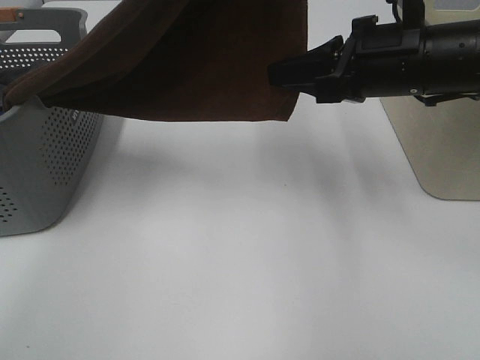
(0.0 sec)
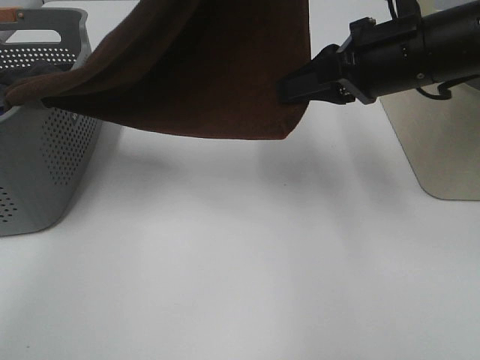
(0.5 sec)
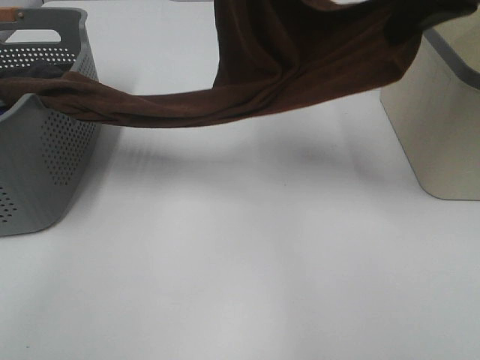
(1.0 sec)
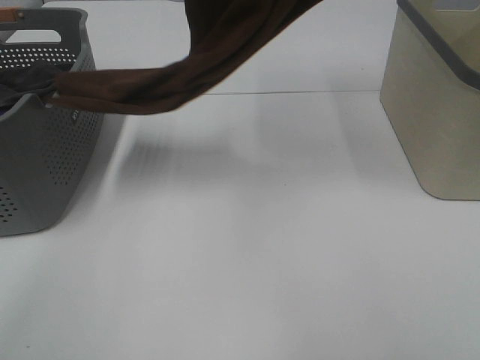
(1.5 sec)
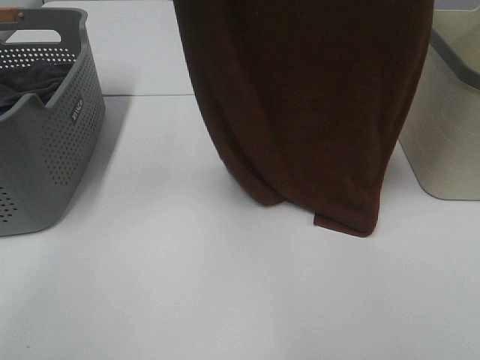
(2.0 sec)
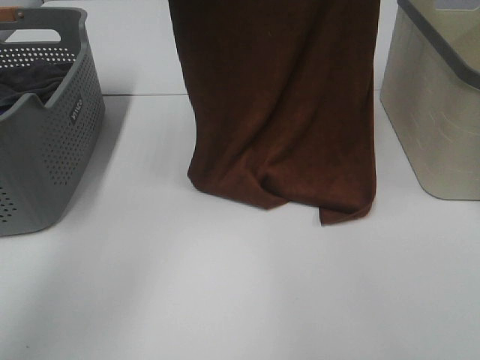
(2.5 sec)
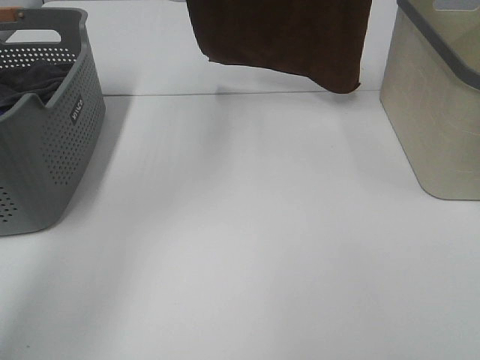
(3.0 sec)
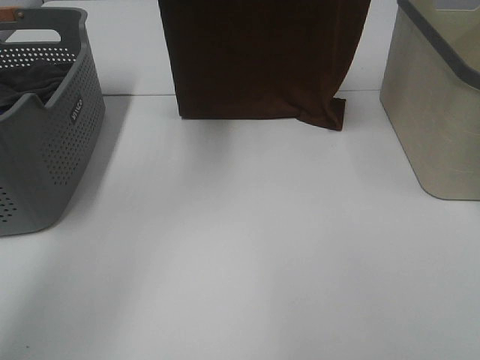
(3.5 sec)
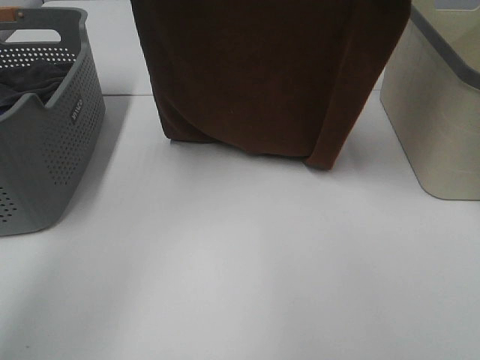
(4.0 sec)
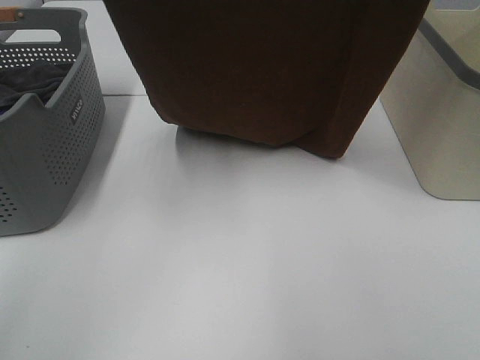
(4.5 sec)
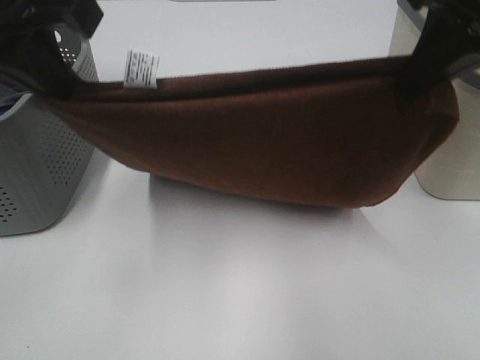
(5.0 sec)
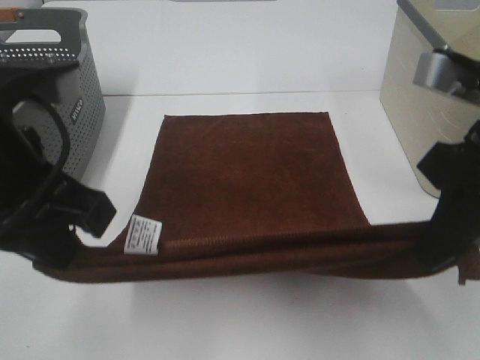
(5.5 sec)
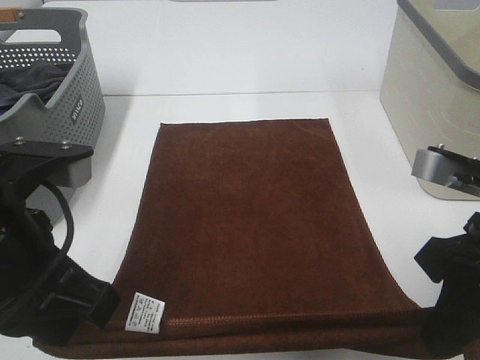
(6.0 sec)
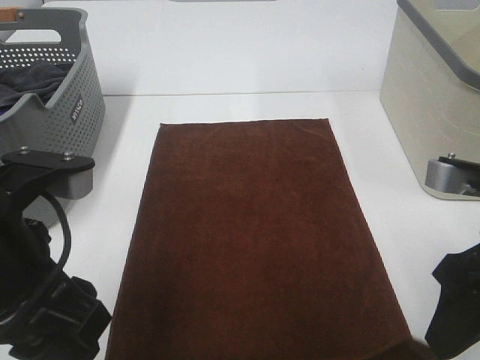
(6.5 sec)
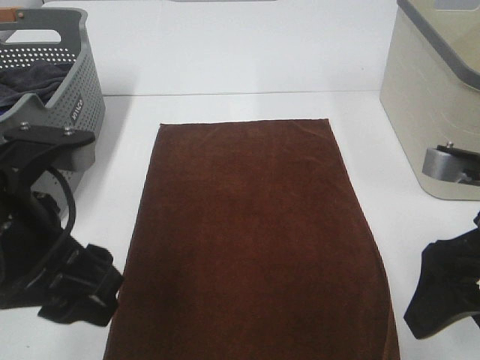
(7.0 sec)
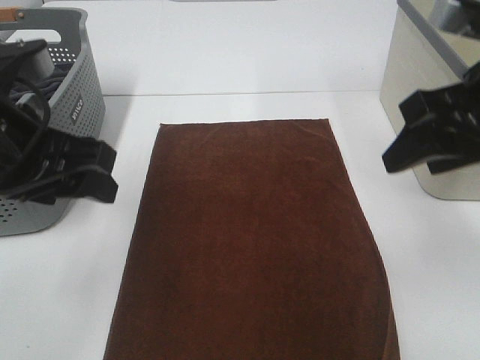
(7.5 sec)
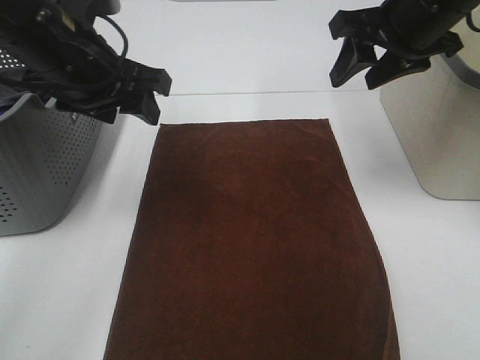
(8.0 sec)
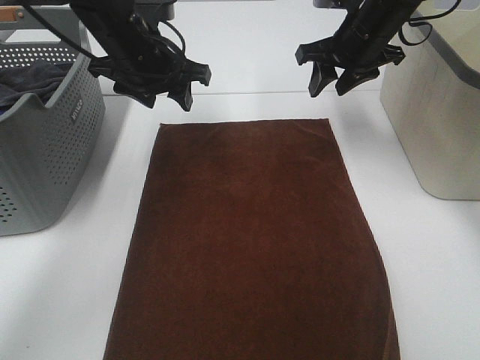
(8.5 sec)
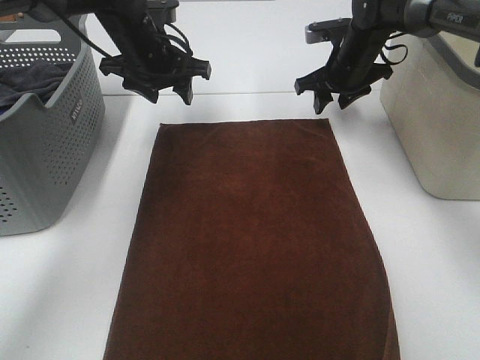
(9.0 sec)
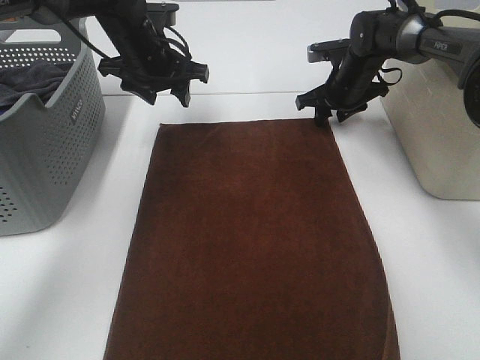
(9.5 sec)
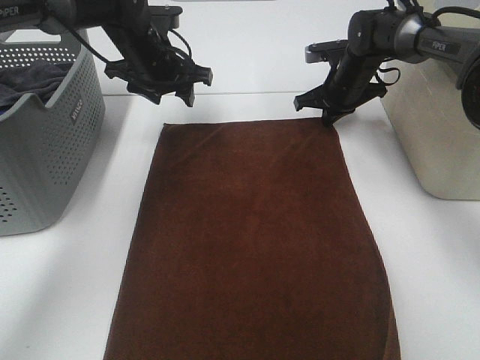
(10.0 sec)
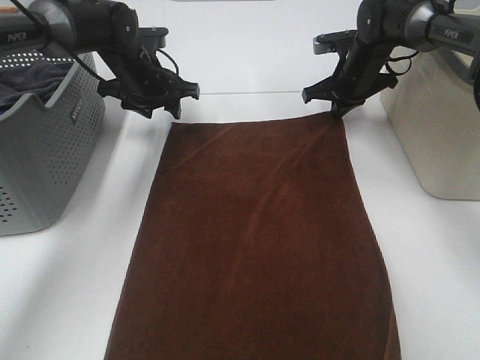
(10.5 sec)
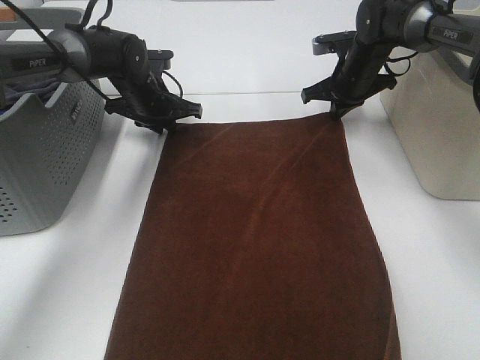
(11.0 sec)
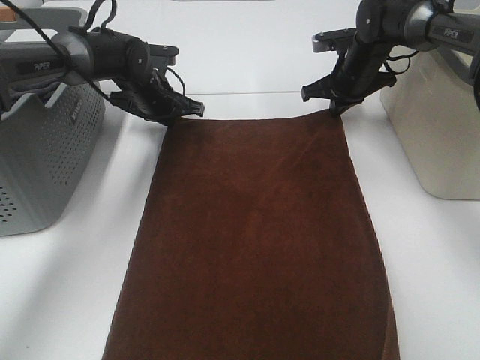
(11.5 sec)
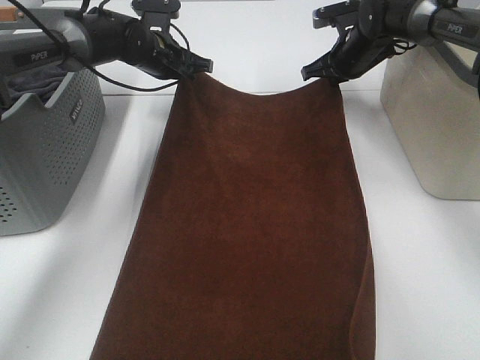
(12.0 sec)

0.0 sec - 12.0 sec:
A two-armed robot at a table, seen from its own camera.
Task of the whole recording: Remove the towel and place it.
Step, 0.0 sec - 2.5 sec: Left hand: spread the brown towel flat on the table.
Step, 0.0 sec - 2.5 sec: Right hand: spread the brown towel flat on the table.
Step, 3.0 sec - 8.5 sec: Left hand:adjust the brown towel.
Step, 3.0 sec - 8.5 sec: Right hand:adjust the brown towel.
0.0 sec - 2.0 sec: The left gripper moves up and down over about 10 cm, changing direction 2 times. Meanwhile the right gripper heads upward, covering roughly 25 cm.
2.0 sec - 4.0 sec: The right gripper swings up and down, roughly 15 cm each way, with 2 reversals. Meanwhile the left gripper moves downward and forward, roughly 10 cm.
4.0 sec - 6.0 sec: The two grippers go approximately 30 cm backward and downward.
6.0 sec - 8.0 sec: Both grippers travel together forward, some 20 cm. The left gripper opens; the right gripper opens.
8.0 sec - 10.0 sec: The right gripper moves downward and forward, roughly 25 cm, and closes up. The left gripper is displaced forward and downward by about 20 cm.
10.0 sec - 12.0 sec: The left gripper shifts about 5 cm forward, and closes up.

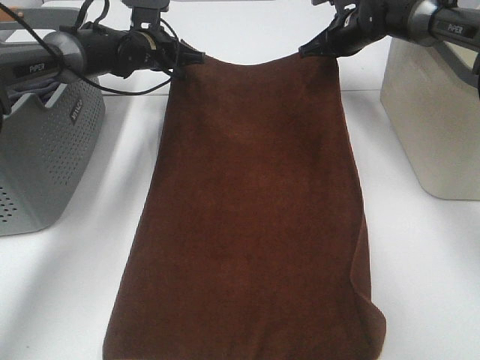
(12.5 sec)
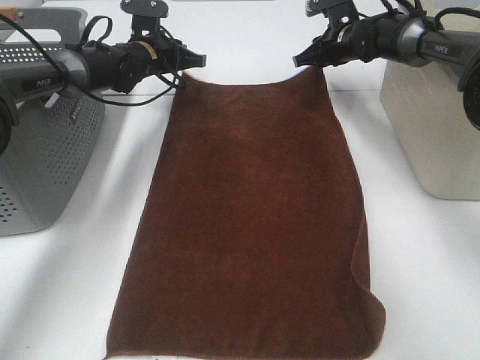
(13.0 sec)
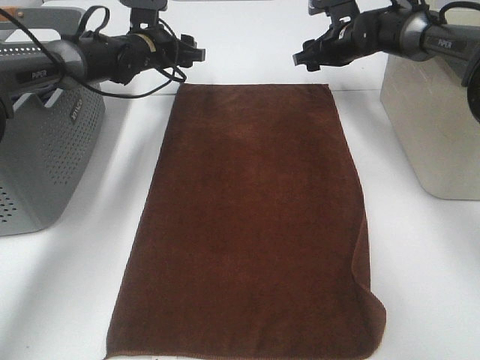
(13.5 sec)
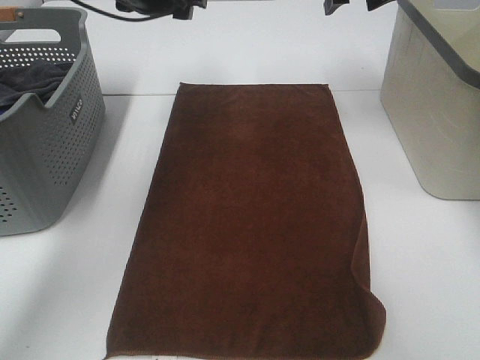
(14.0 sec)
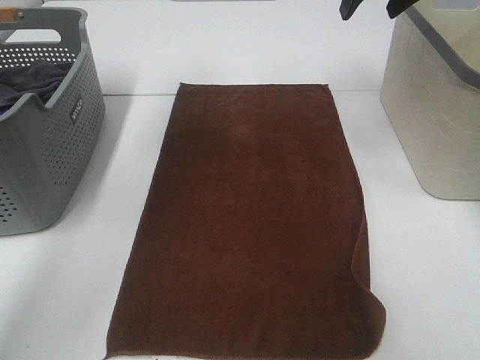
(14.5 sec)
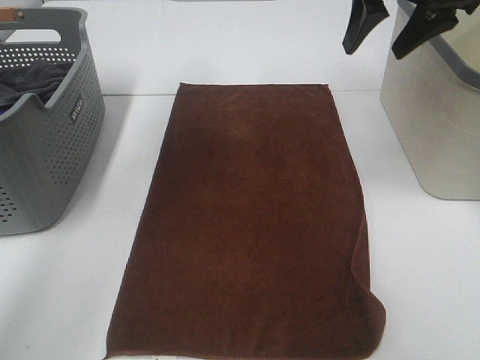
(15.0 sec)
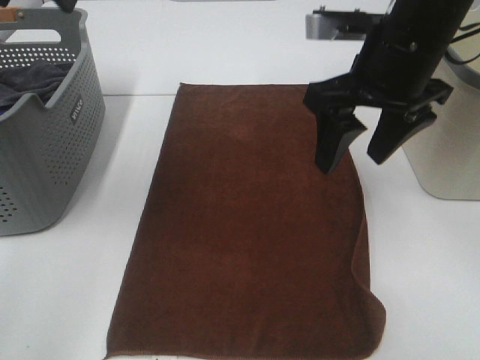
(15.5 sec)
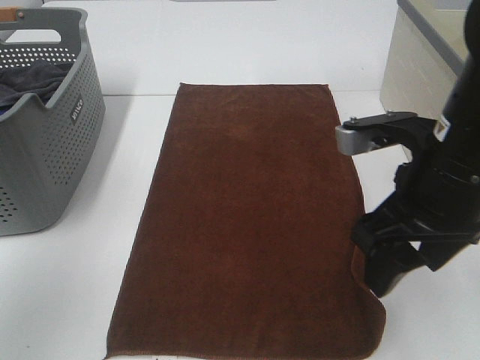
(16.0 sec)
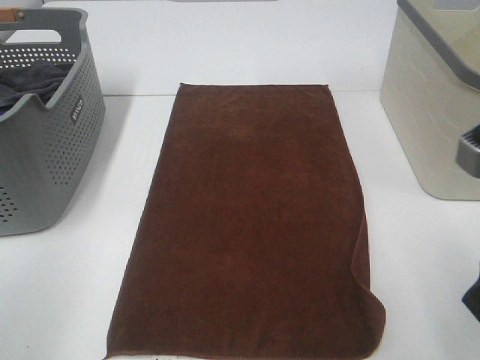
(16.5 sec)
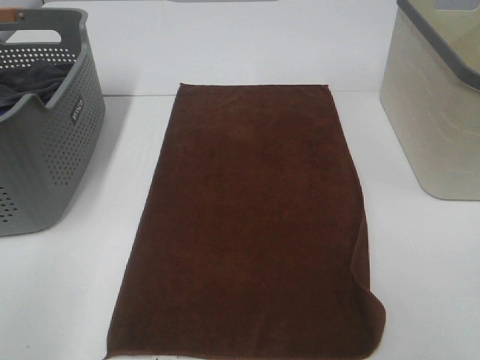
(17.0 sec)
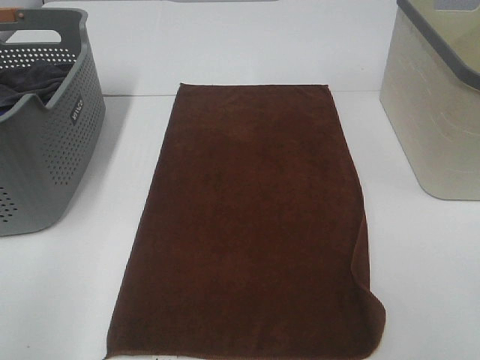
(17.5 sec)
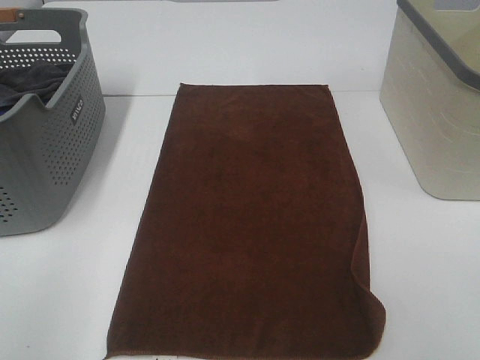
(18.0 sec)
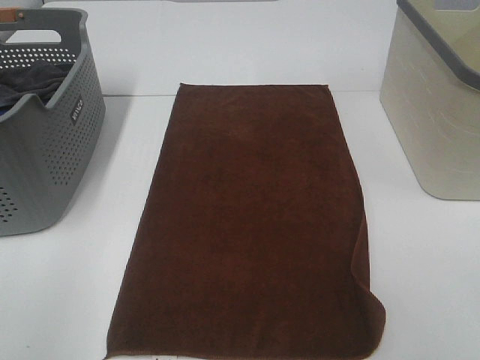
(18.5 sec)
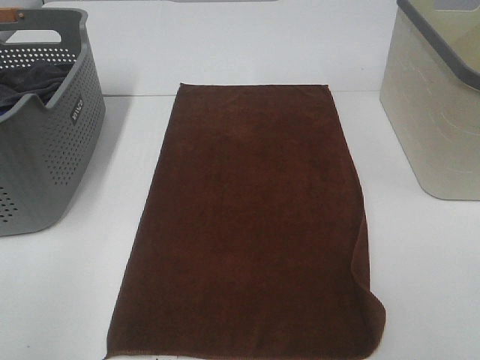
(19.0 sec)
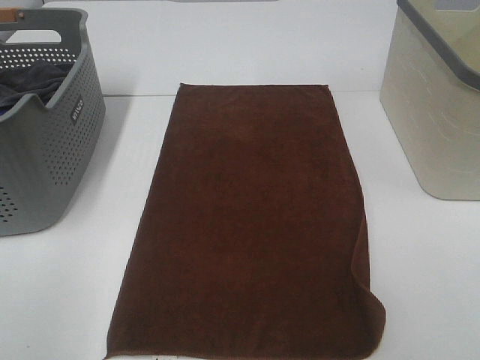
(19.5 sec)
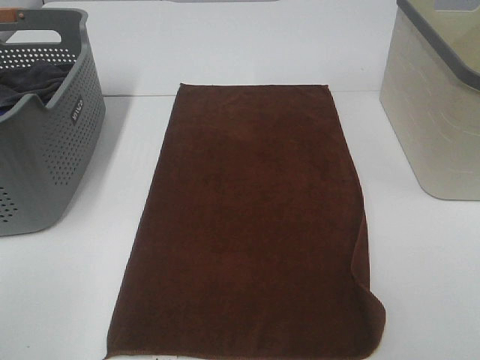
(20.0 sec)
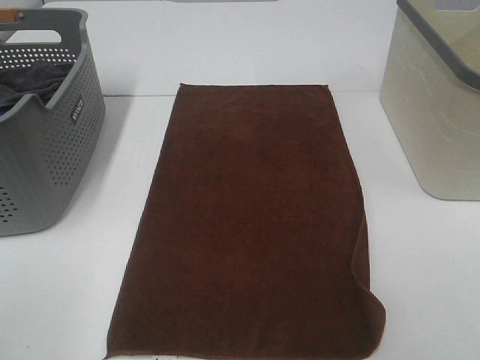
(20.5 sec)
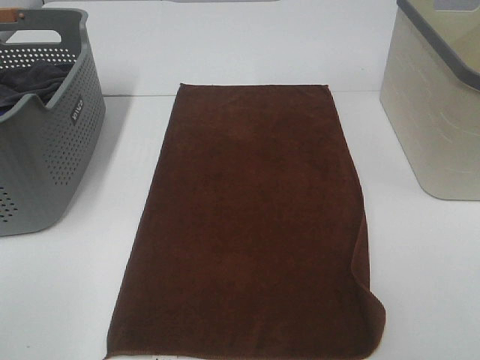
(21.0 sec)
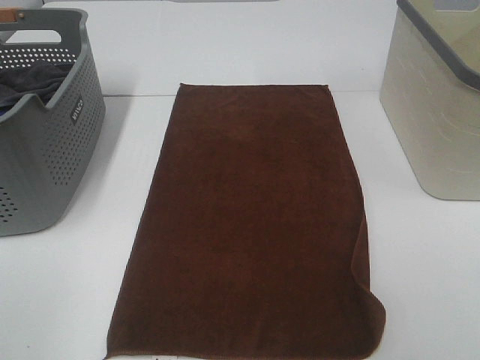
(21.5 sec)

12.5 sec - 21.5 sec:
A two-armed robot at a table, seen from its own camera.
Task of the whole recording: Remove the towel and place it.
12.5 sec - 14.5 sec: Both grippers travel together upward and backward, some 25 cm. The right gripper opens up. The left gripper opens up.
14.5 sec - 17.0 sec: Both grippers travel together backward, about 40 cm.
